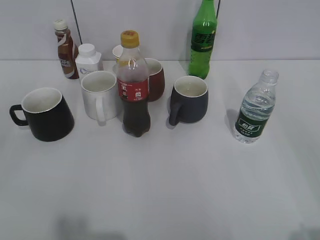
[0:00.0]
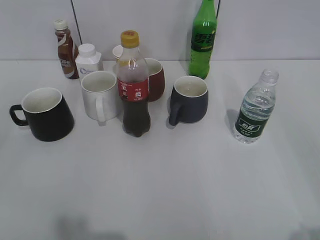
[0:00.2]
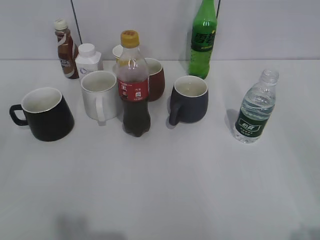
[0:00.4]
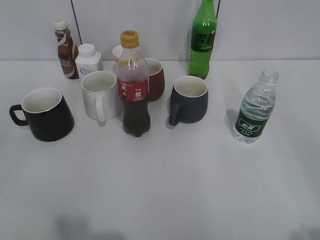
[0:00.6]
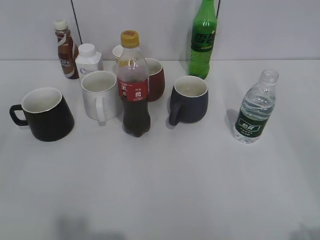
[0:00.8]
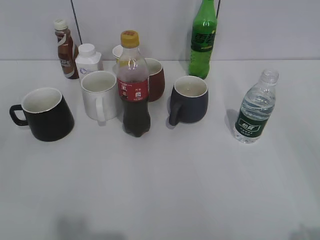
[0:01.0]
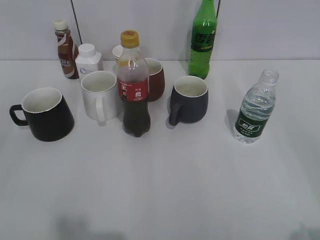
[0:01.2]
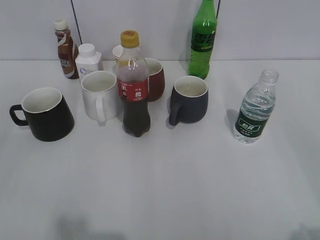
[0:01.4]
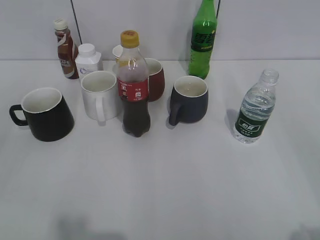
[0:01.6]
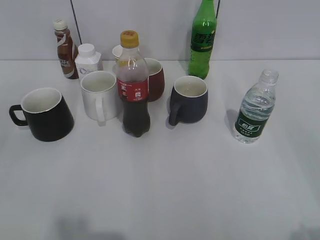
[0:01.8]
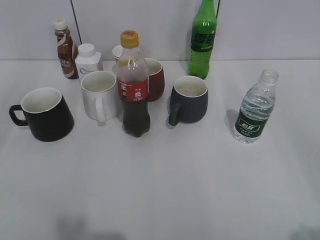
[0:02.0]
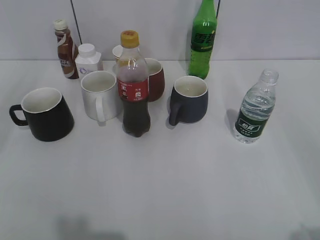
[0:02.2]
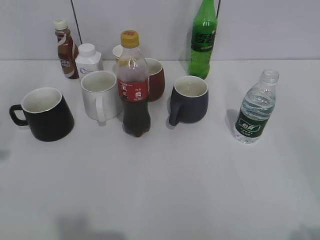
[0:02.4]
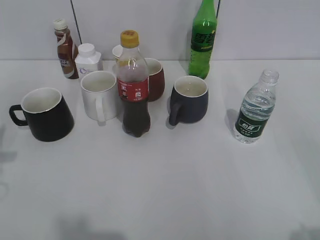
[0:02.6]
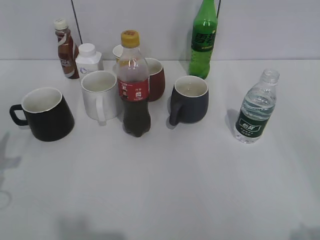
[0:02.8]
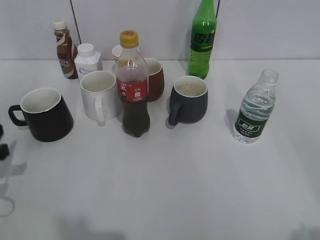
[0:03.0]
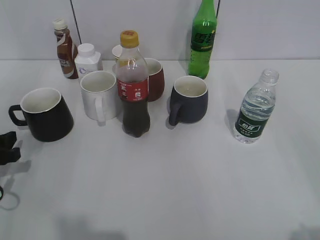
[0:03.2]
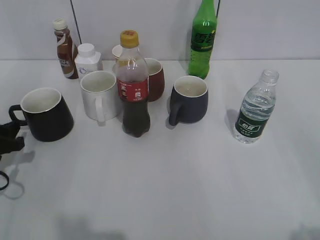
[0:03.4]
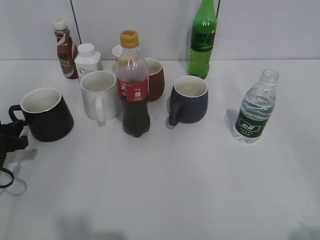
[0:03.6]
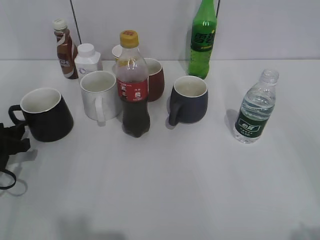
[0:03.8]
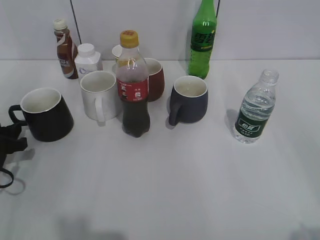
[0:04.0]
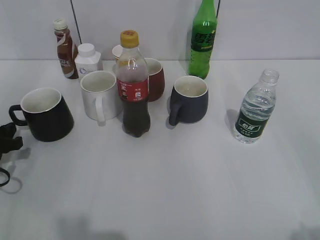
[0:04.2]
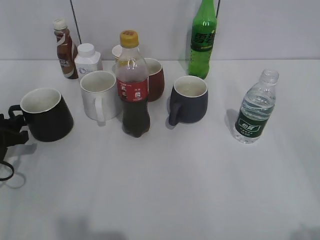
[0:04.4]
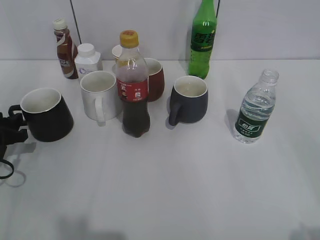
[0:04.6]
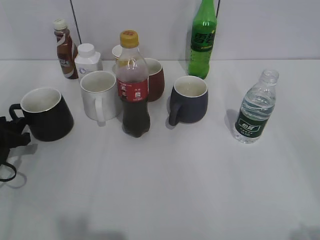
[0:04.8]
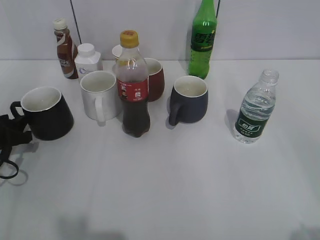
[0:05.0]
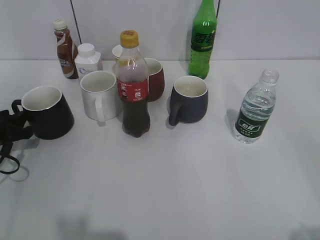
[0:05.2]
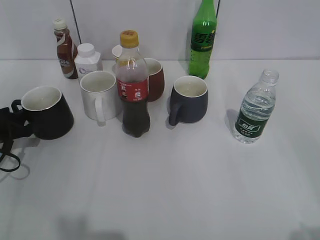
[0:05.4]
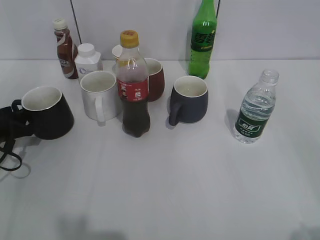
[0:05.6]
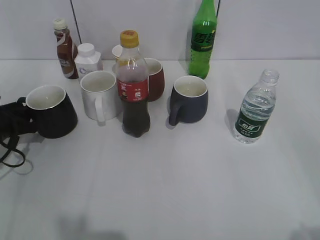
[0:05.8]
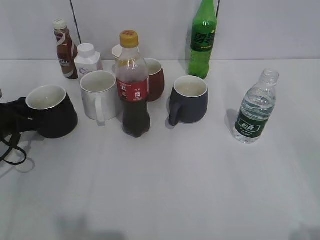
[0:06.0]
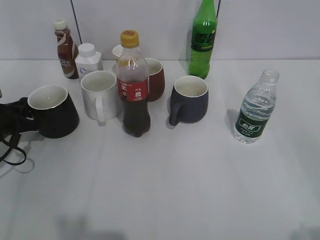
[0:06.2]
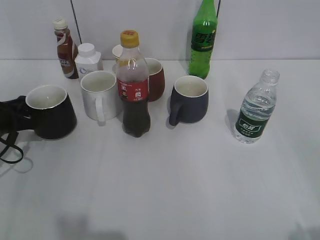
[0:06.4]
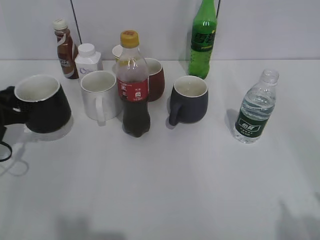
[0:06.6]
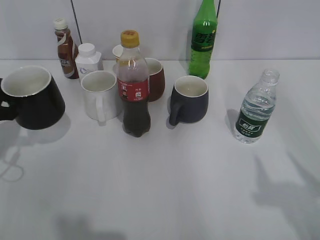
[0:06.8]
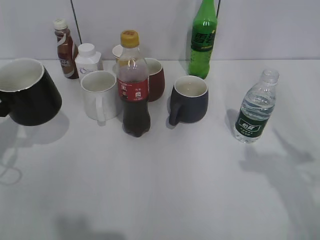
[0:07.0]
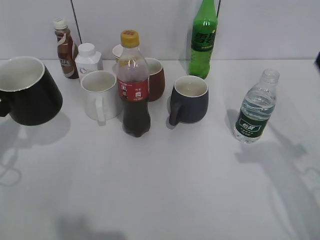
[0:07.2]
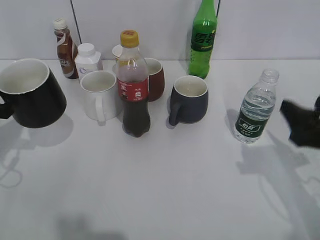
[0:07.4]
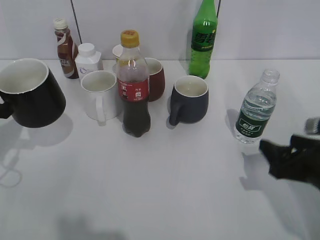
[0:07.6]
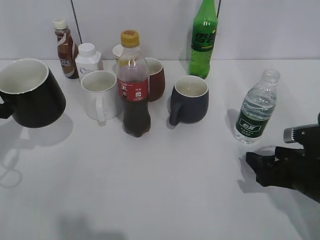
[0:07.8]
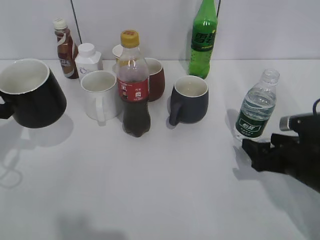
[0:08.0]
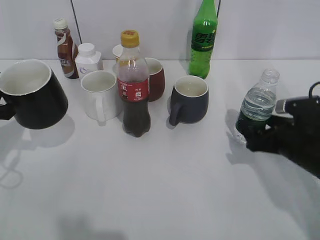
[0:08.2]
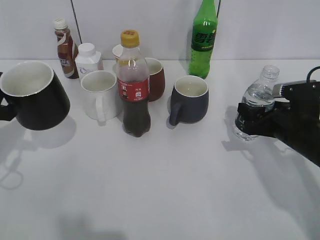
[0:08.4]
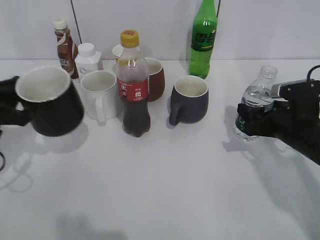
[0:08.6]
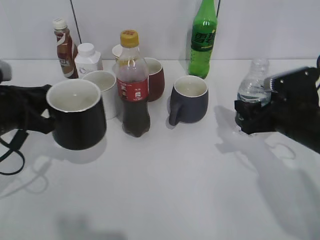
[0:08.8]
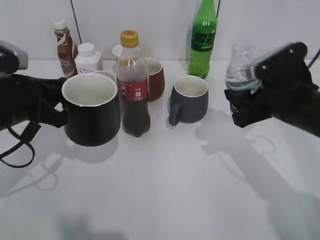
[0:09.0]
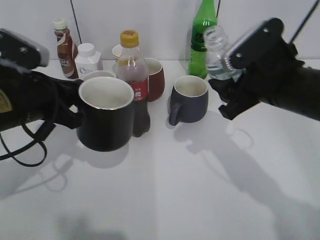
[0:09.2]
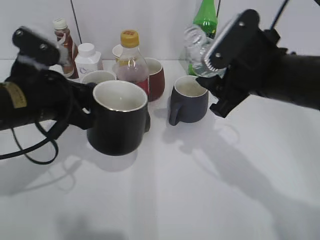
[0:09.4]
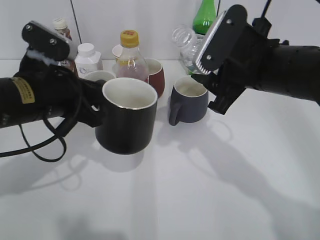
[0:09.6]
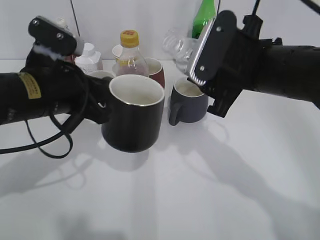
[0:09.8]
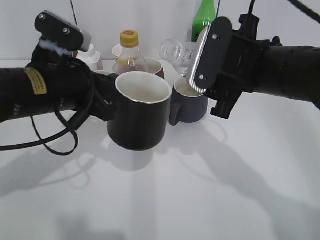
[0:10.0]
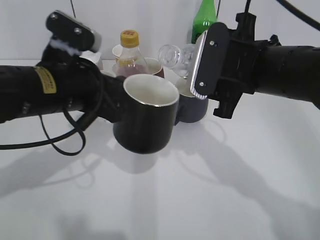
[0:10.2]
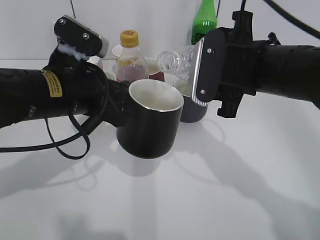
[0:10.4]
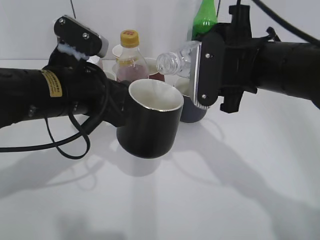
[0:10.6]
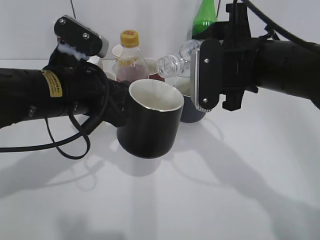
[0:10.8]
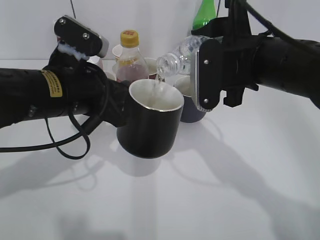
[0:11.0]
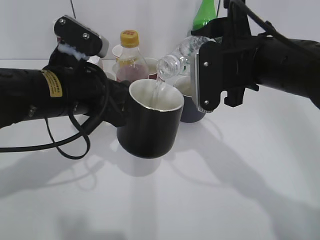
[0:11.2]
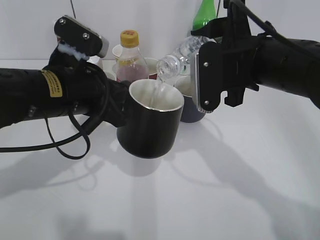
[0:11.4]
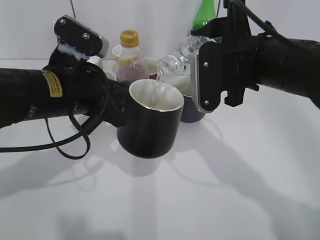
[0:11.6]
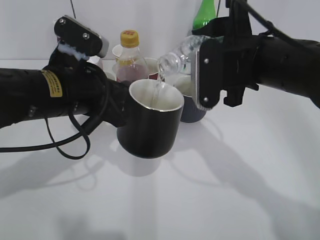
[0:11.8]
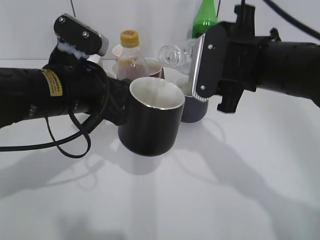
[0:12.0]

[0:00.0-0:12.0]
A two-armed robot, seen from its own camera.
Step, 1.8 to 6.0 s: Grasp the black cup with left gripper.
Step, 6.4 to 7.0 s: Lift the black cup with left gripper.
Step, 7.2 to 8.4 s: Grasp the bottle with water with right gripper.
1.6 to 3.0 s: The left gripper goes approximately 25 cm forward and downward.
3.0 to 4.4 s: The left gripper moves forward, some 5 cm.
4.4 to 6.0 s: The left gripper closes.
6.0 to 7.6 s: The right gripper goes about 25 cm forward and downward. Meanwhile the left gripper moves upward and backward, roughly 10 cm, and closes its fingers.
7.6 to 9.0 s: The left gripper goes some 10 cm to the right, while the right gripper is displaced forward, to the left and upward by roughly 10 cm, and closes its fingers.
9.0 to 10.4 s: The left gripper travels to the right by about 10 cm. Meanwhile the right gripper heads to the left and upward, covering about 10 cm.
10.4 to 12.0 s: The grippers make only small movements.

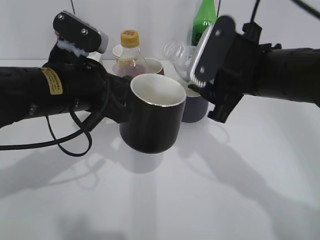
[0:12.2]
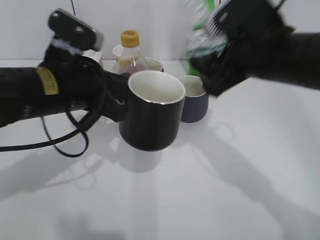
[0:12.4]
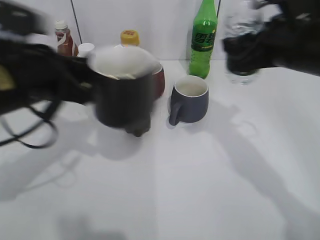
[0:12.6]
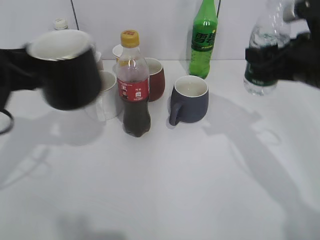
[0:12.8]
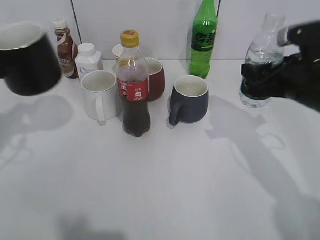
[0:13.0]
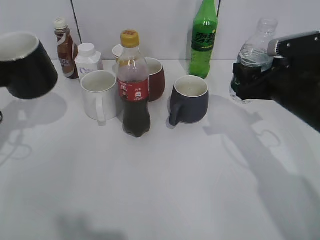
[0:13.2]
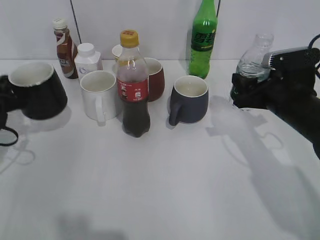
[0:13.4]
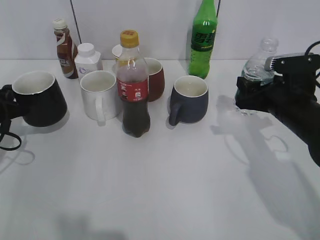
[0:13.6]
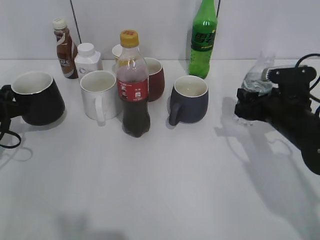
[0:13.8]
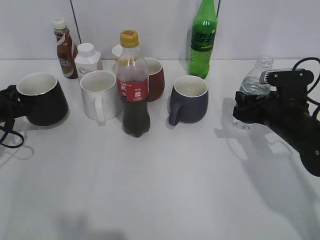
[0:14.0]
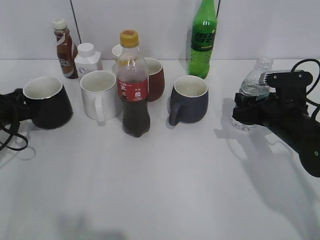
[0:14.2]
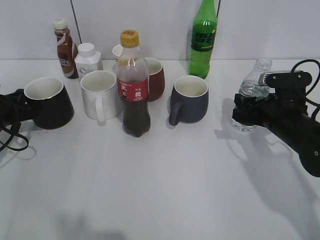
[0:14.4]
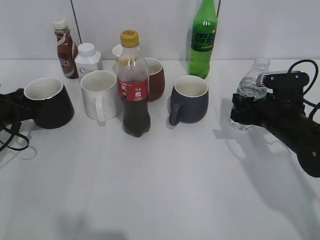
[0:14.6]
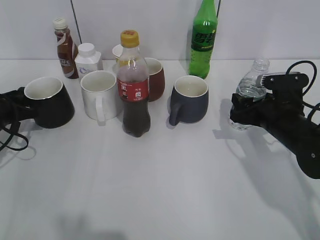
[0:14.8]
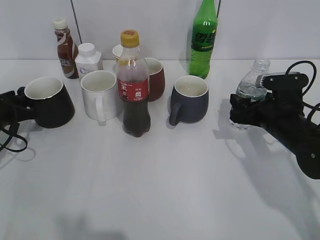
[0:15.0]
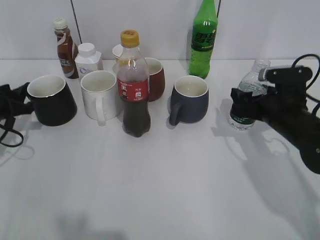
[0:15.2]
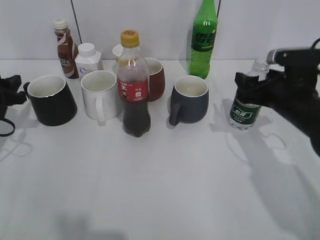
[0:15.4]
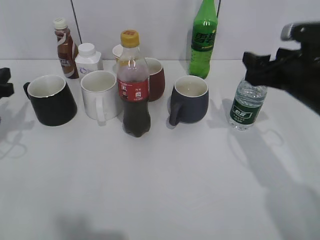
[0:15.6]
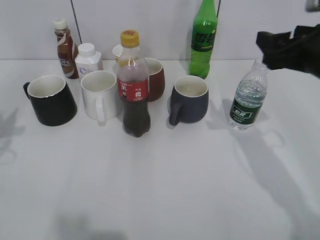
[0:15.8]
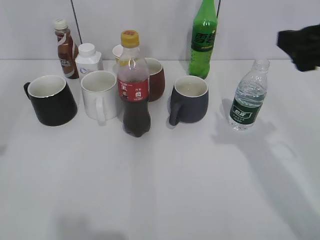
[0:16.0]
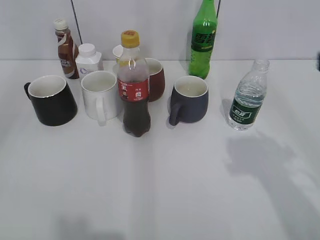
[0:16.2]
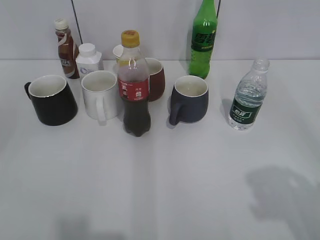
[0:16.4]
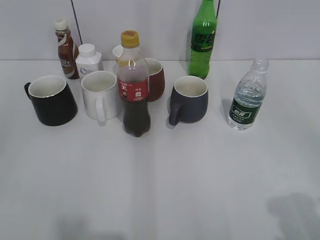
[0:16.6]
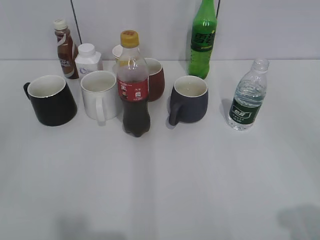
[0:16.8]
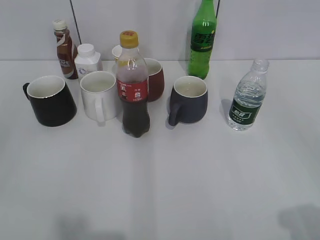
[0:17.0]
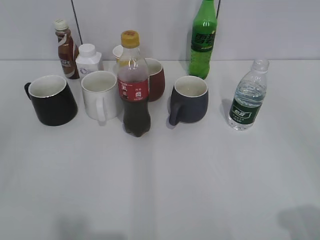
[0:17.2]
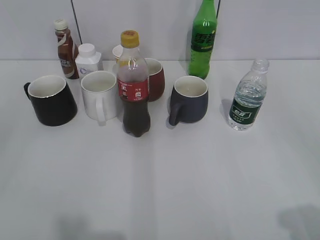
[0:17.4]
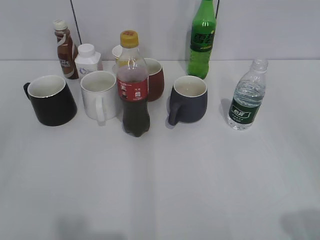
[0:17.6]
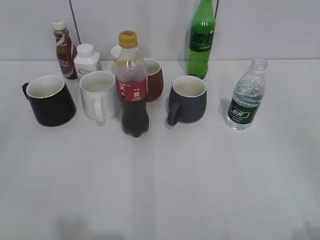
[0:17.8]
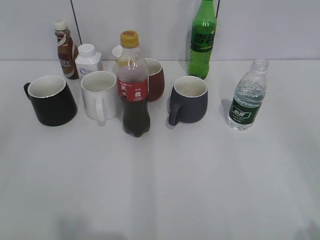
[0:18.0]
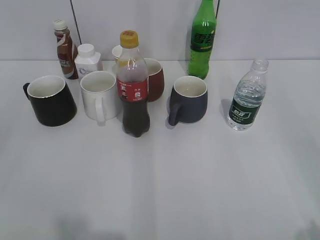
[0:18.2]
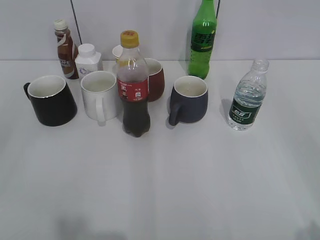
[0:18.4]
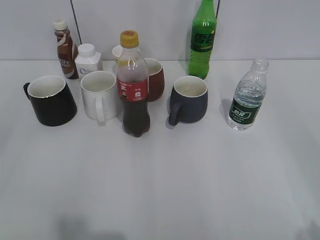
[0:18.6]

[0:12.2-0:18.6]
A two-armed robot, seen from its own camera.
Step, 12.2 to 15.2 s: Place the black cup on the table with left gripper.
12.2 to 13.8 s: The left gripper travels to the left and downward by some 25 cm. Meanwhile the right gripper moves downward and to the right, roughly 15 cm.
13.8 to 15.4 s: The right gripper opens up, while the left gripper opens.
15.4 to 17.0 s: Both grippers move backward and upward, about 35 cm.

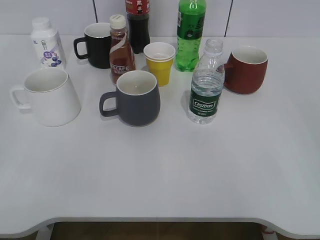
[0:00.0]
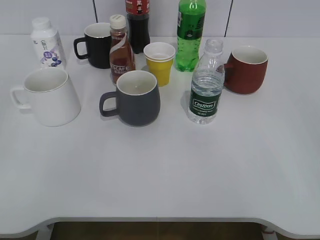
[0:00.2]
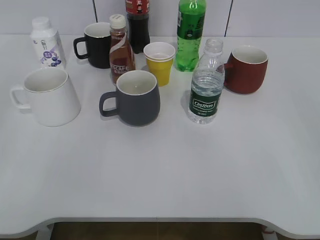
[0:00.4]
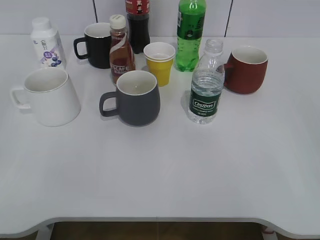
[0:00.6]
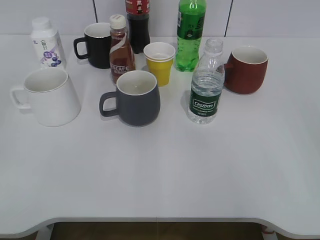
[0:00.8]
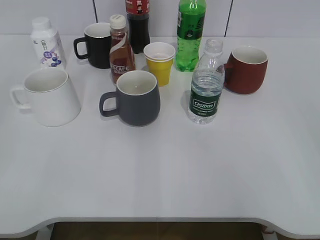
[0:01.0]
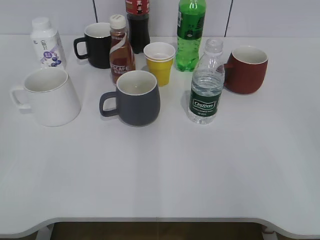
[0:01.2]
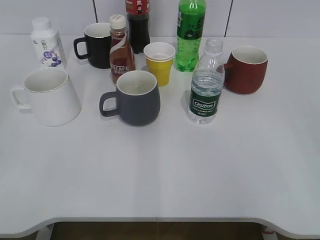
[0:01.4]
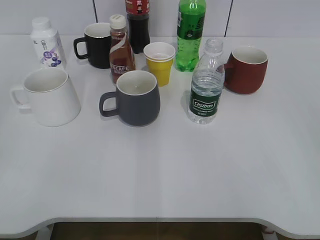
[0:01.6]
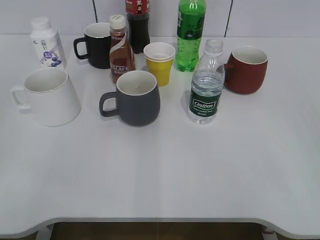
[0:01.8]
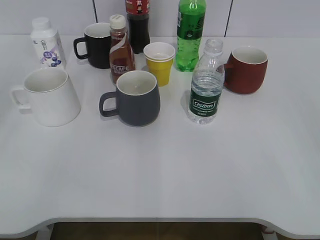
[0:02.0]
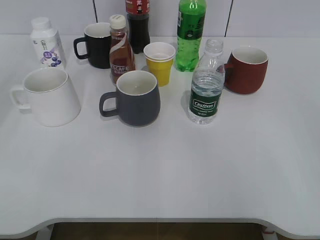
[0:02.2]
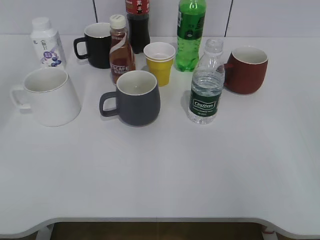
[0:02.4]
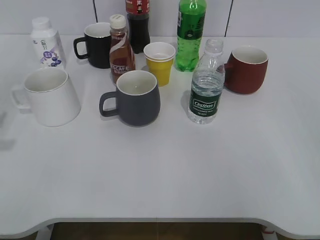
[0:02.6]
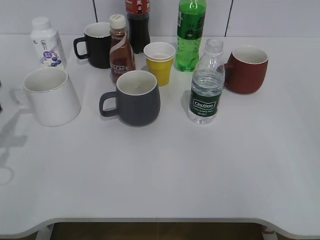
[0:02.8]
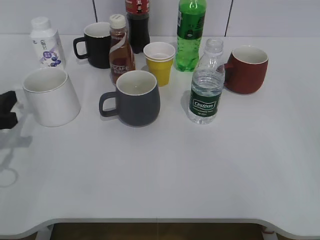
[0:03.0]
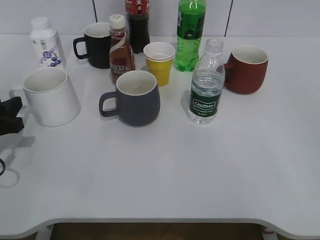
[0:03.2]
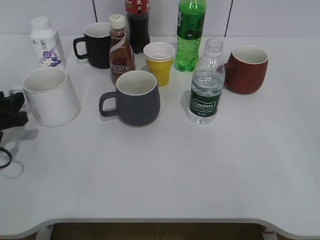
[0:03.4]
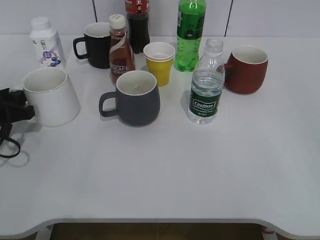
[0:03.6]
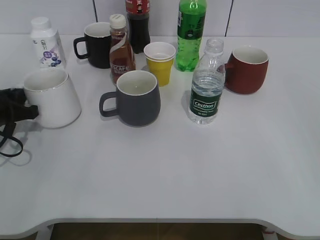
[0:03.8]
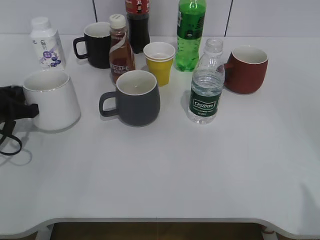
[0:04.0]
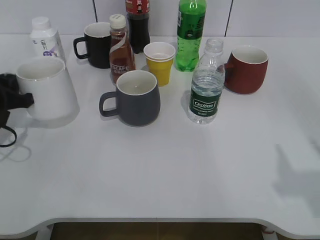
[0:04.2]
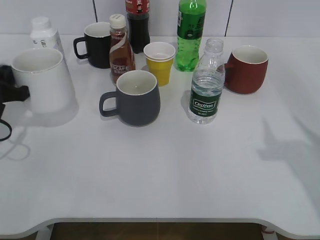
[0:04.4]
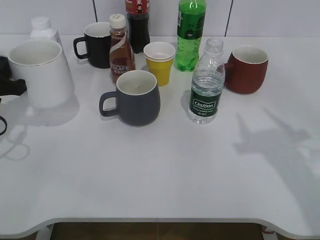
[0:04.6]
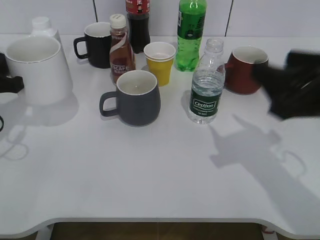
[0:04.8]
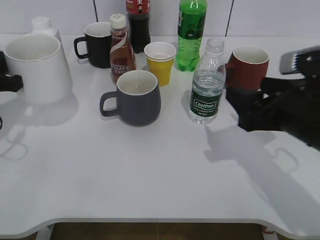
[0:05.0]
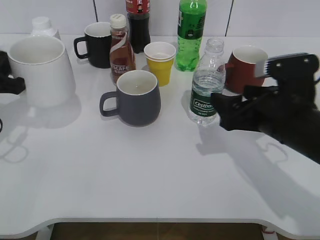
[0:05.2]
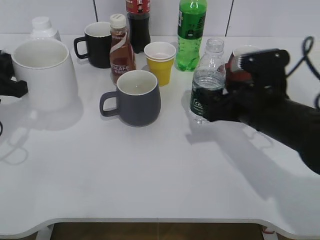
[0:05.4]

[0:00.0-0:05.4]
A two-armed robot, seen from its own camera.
Step, 1.6 to 3.6 s: Grasp the white cup with left gripper.
1.4 to 2.8 s: The left gripper moves forward and downward, about 25 cm.
2.8 to 4.0 s: The left gripper shifts roughly 10 cm forward and downward, and closes.
4.0 to 5.4 s: The right gripper moves forward, downward and to the left, roughly 30 cm, and closes, then opens again, while the left gripper heads upward, covering roughly 5 cm.
